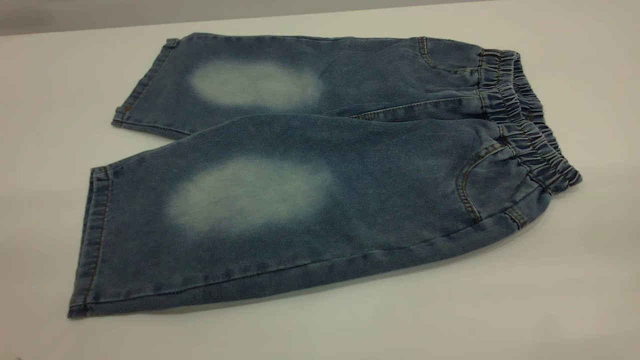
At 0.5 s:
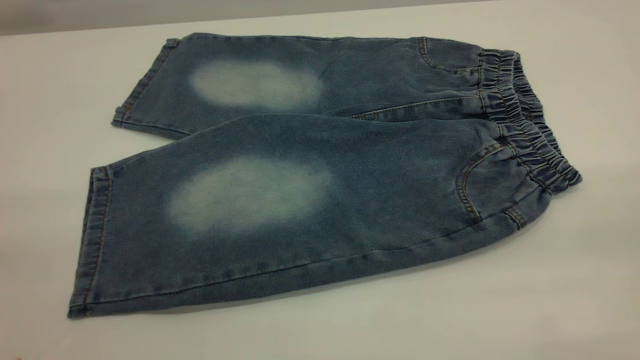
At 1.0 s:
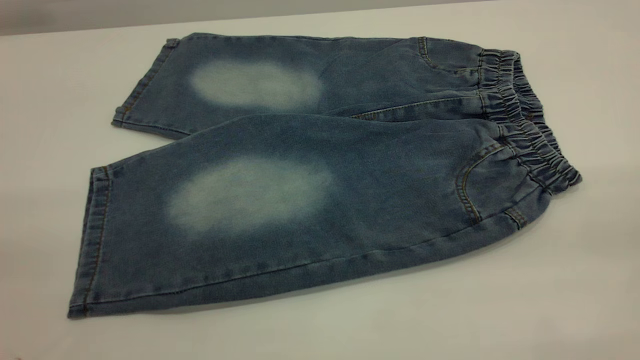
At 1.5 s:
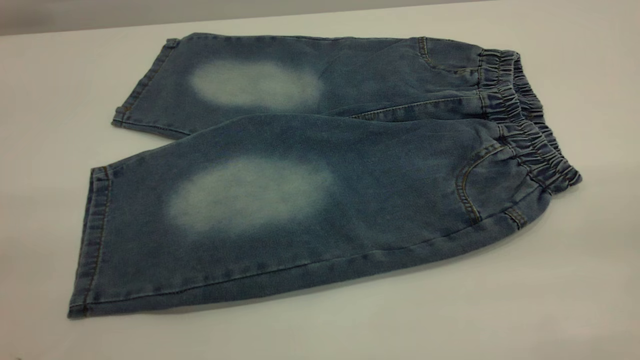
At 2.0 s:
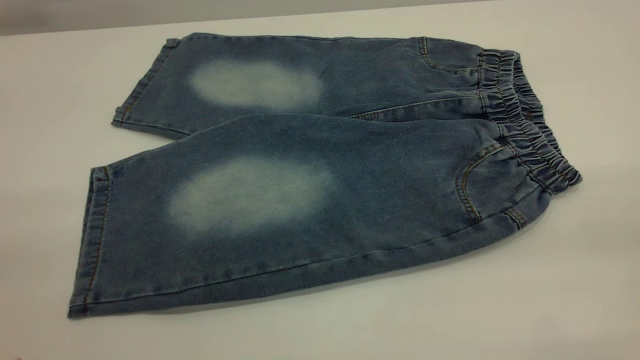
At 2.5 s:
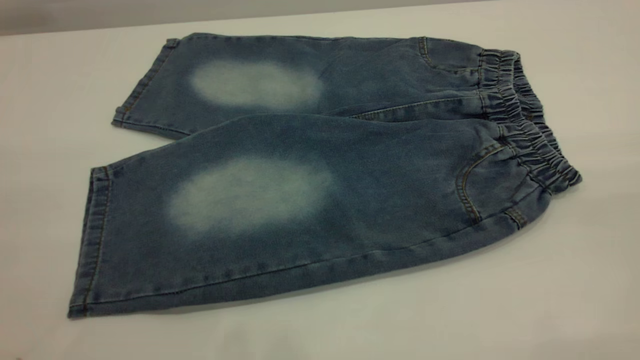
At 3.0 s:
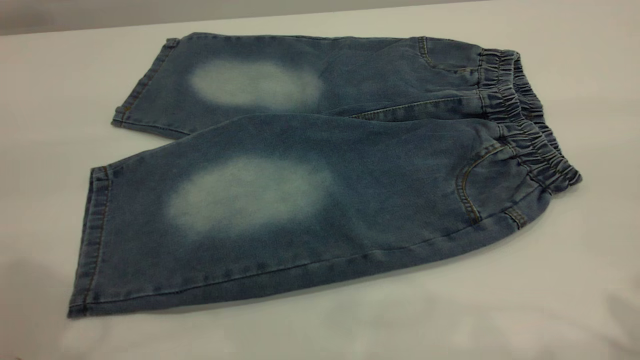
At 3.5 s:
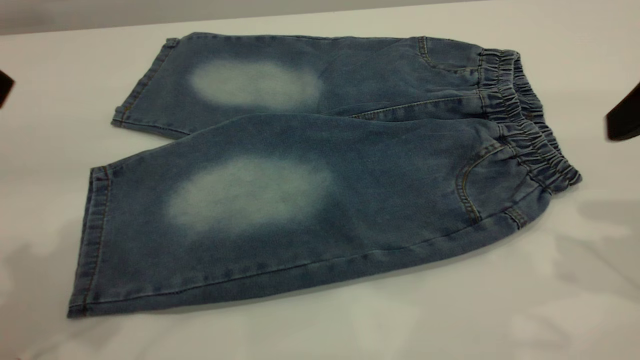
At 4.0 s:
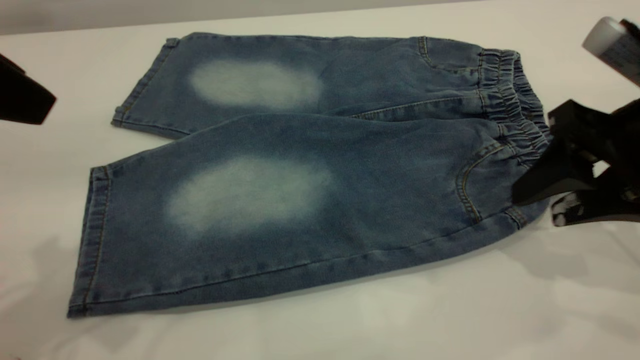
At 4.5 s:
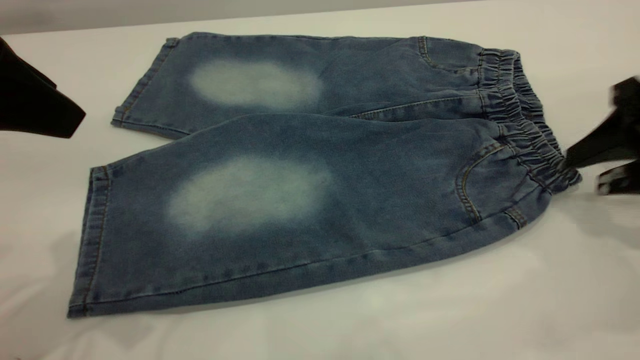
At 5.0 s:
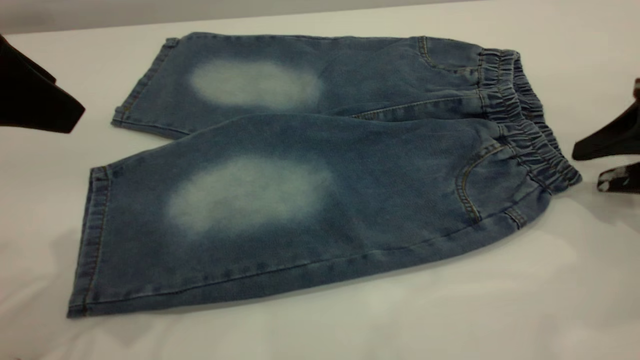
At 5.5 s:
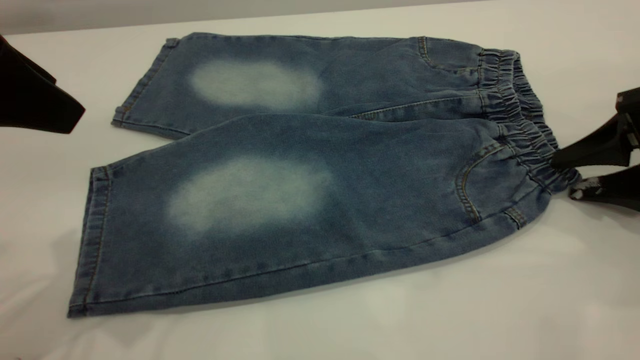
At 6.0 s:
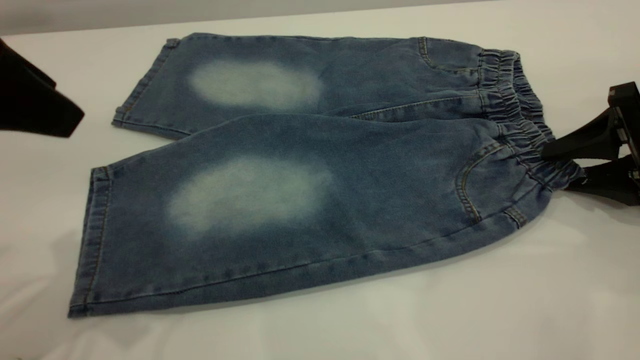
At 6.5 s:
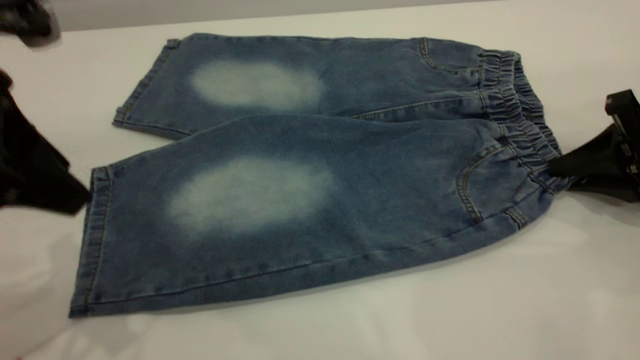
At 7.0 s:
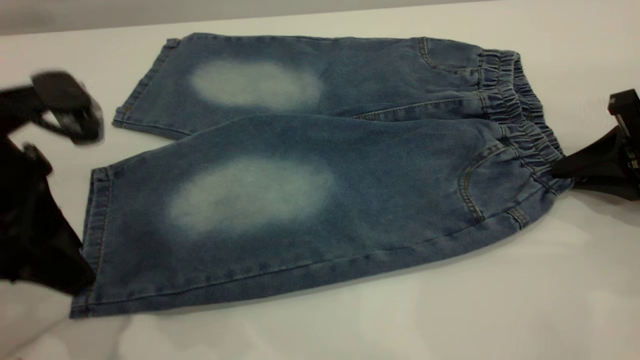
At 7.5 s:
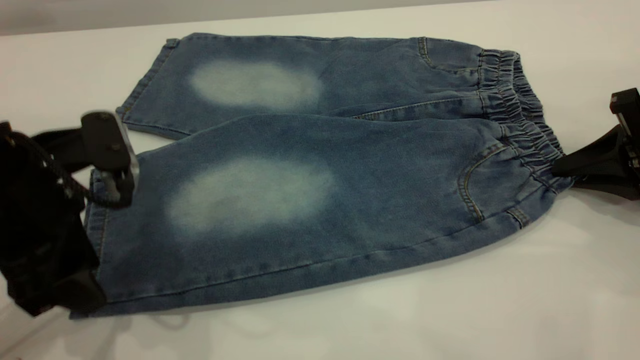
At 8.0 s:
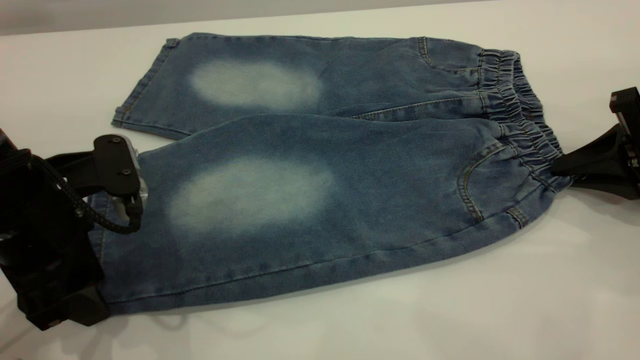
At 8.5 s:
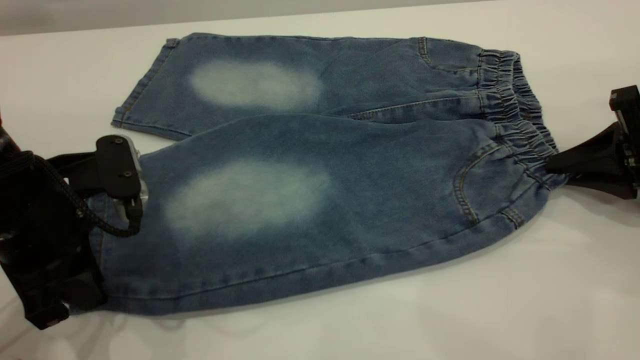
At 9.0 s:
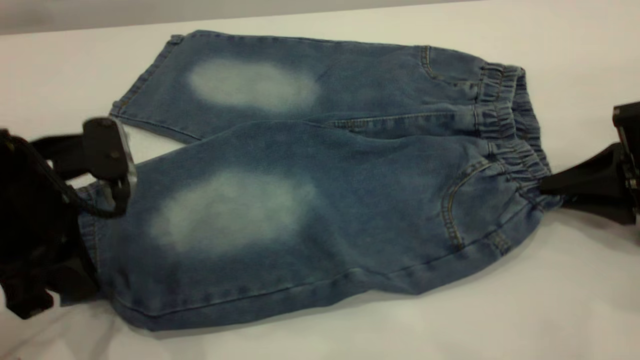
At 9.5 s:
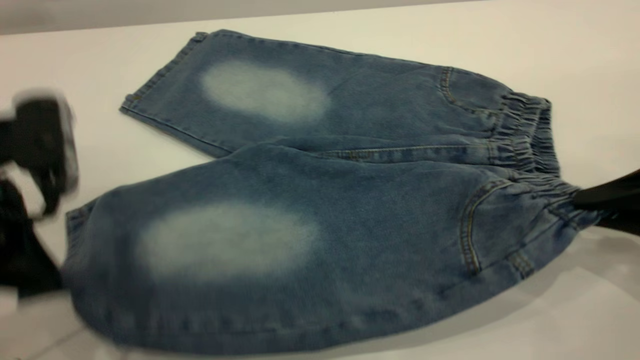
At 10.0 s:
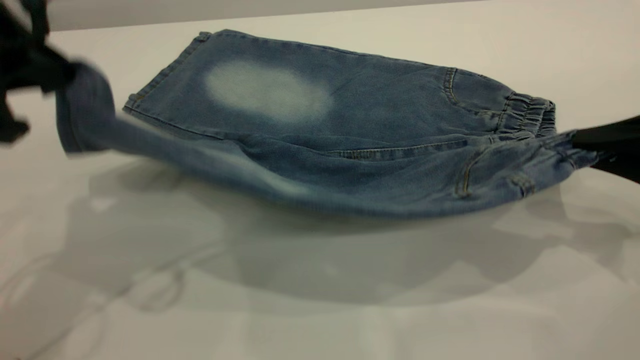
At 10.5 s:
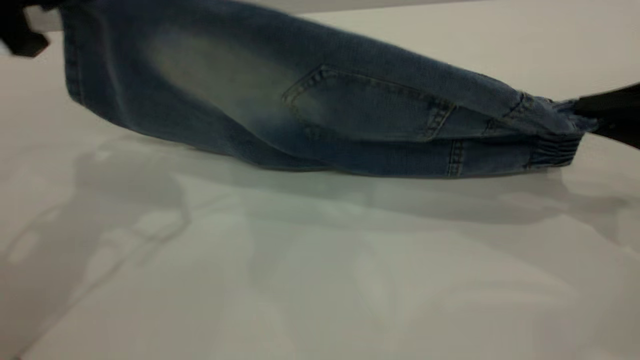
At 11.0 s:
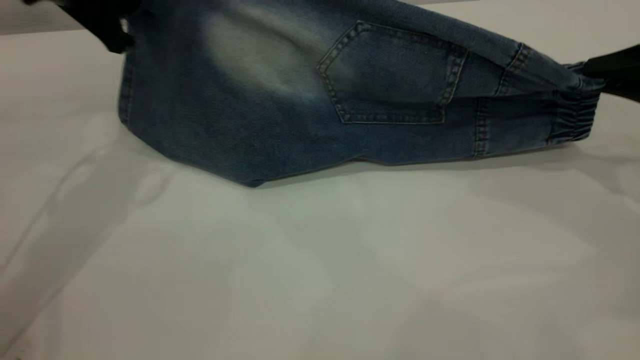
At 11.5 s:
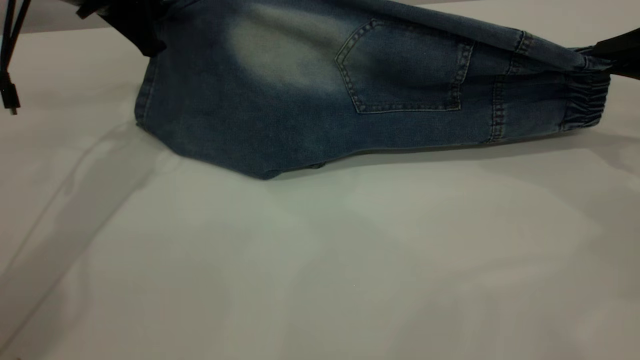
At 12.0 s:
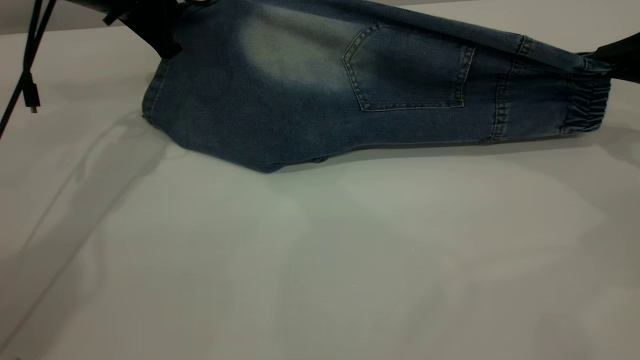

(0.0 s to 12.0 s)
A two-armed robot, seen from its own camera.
0.0 s - 2.0 s: The two grippers keep their place.
2.0 s - 4.0 s: The right gripper shifts approximately 30 cm forward and downward. The left gripper is displaced forward by about 20 cm.
4.0 s - 6.0 s: The right gripper is displaced to the right and downward by approximately 10 cm.
6.0 s - 8.0 s: The right gripper closes; the left gripper is displaced downward by about 15 cm.
8.0 s - 10.0 s: The right gripper is displaced backward and upward by some 10 cm; the left gripper goes about 15 cm upward, and closes up.
10.0 s - 12.0 s: The right gripper is displaced forward and to the right by roughly 15 cm, while the left gripper heads forward, covering roughly 20 cm.

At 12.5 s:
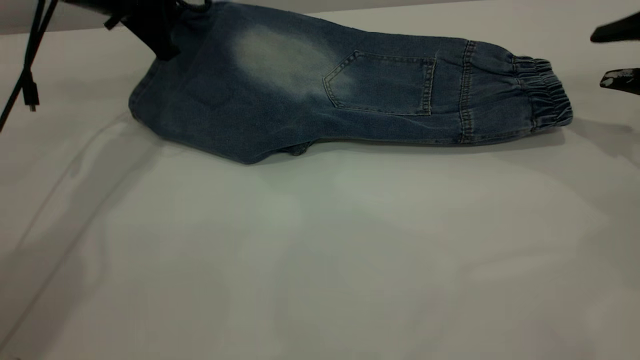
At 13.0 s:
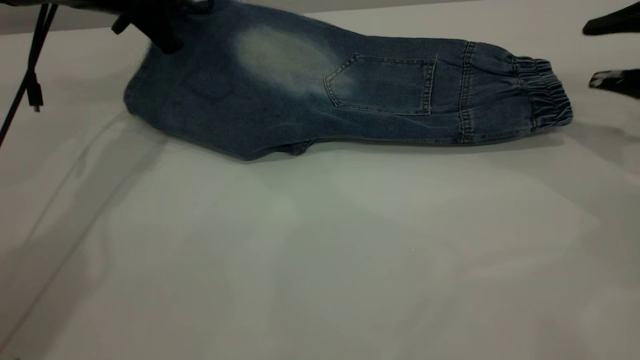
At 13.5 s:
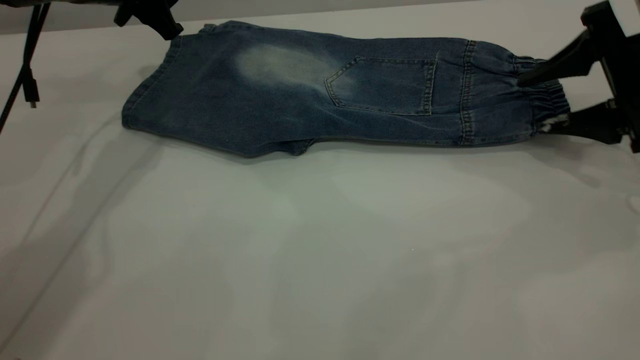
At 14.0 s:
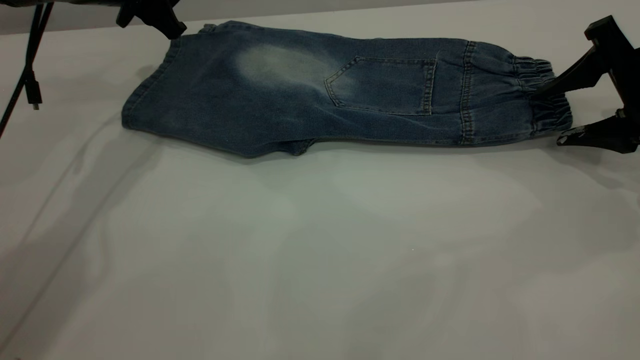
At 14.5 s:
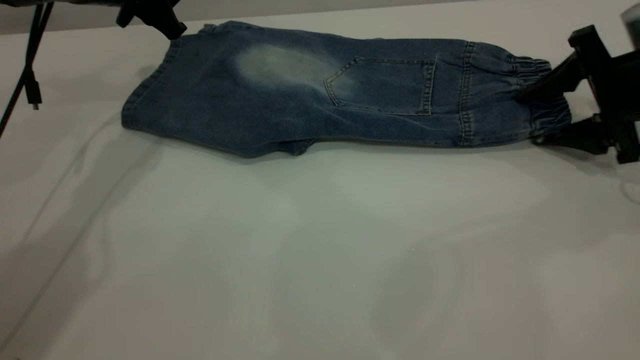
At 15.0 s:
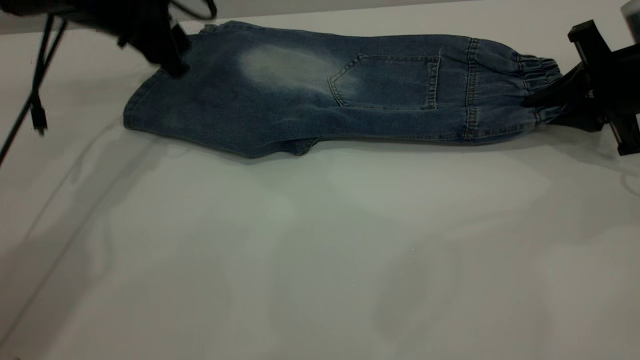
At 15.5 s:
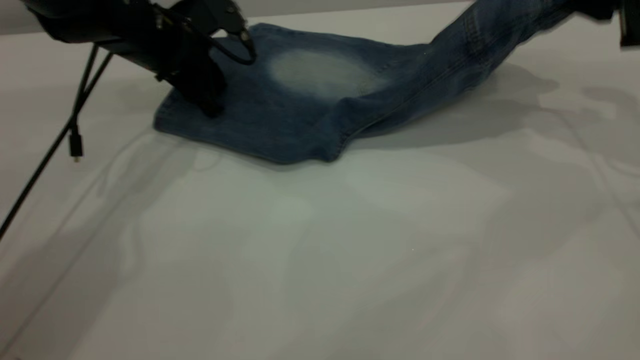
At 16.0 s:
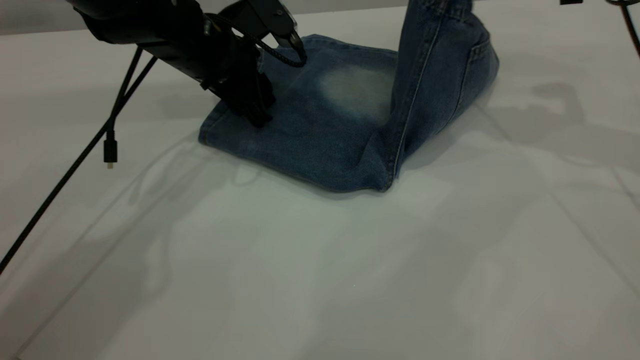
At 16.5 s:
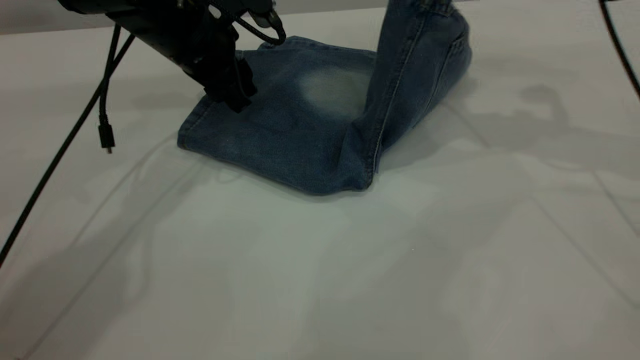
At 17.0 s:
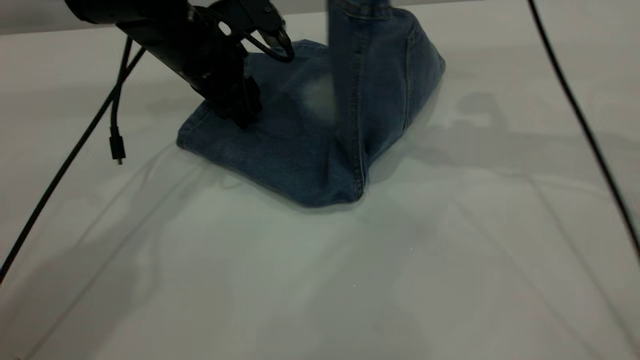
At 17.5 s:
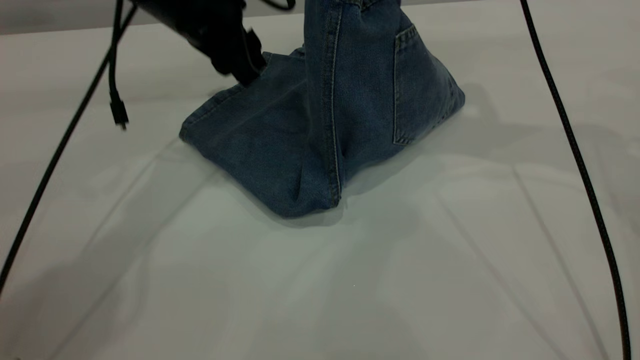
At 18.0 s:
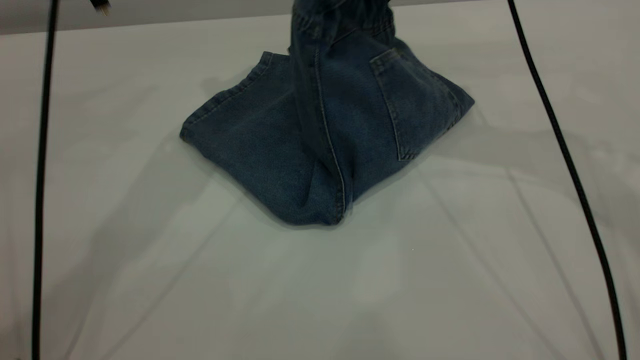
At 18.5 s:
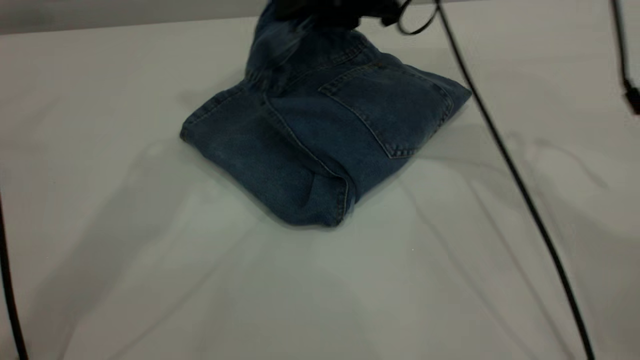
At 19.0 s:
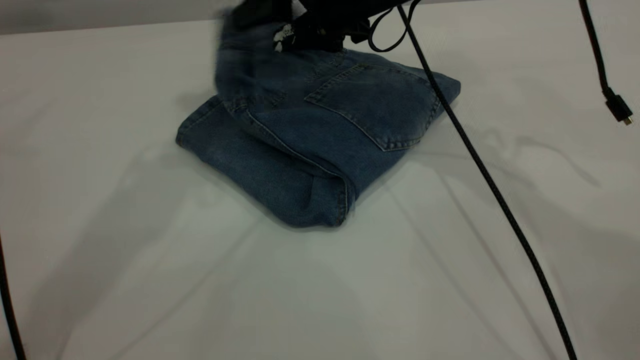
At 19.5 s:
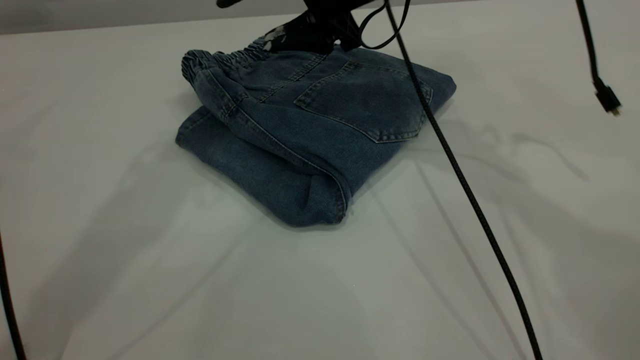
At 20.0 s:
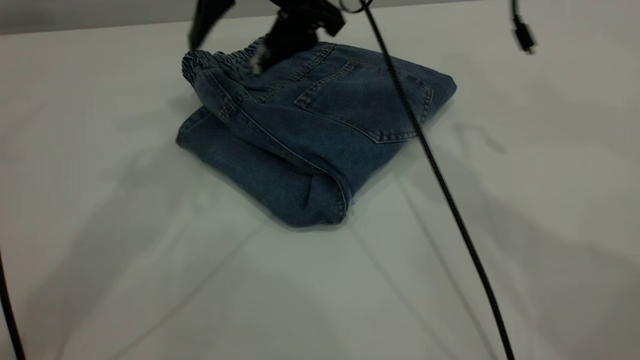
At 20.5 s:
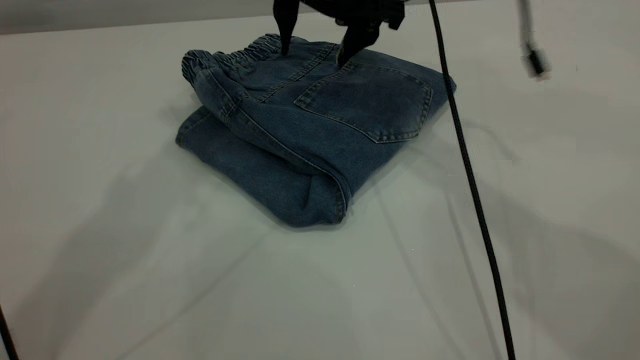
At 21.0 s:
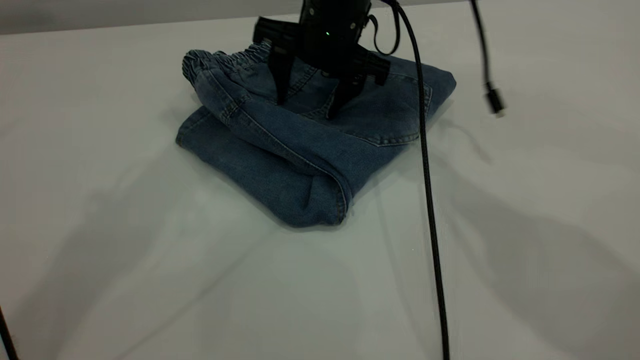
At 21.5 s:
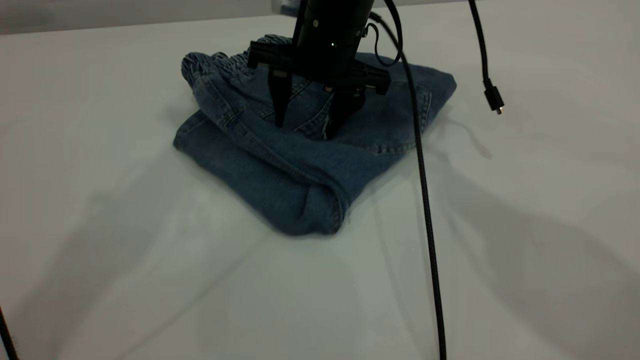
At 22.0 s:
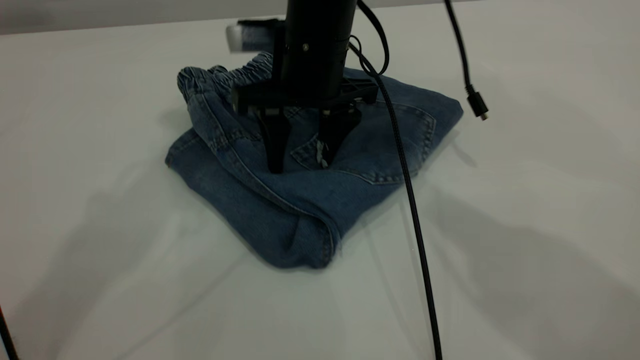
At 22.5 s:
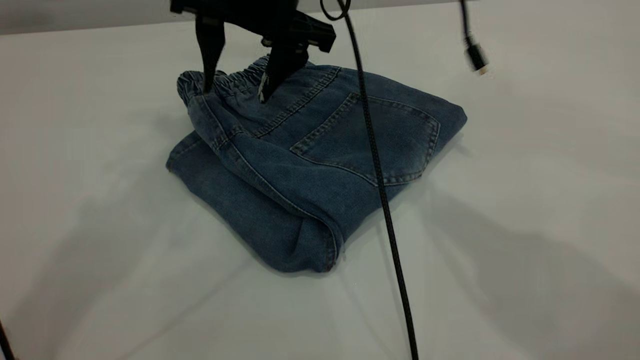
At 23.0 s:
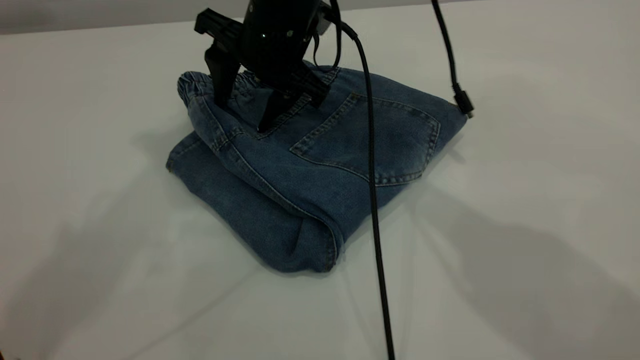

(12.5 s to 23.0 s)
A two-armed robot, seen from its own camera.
Step, 13.5 s - 19.5 s: Fold your pants from right to left.
12.5 s - 14.5 s: The left gripper opens up. Meanwhile the right gripper shifts some 5 cm to the left.
14.5 s - 16.5 s: The right gripper shifts about 15 cm upward and to the left, and closes. Meanwhile the left gripper moves to the right, some 5 cm.
16.5 s - 19.0 s: The right gripper travels to the left by approximately 20 cm, and opens its fingers. The left gripper goes roughly 25 cm upward.
19.0 s - 21.0 s: The right gripper shifts by about 5 cm.
21.0 s - 23.0 s: The right gripper goes roughly 5 cm to the left; the left gripper is displaced upward by roughly 5 cm.
